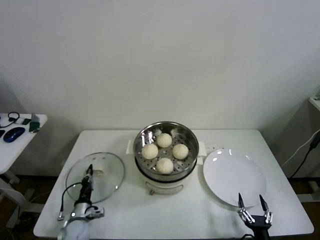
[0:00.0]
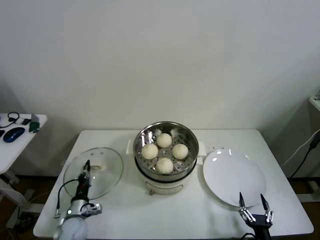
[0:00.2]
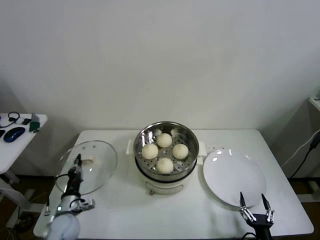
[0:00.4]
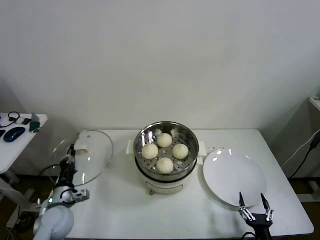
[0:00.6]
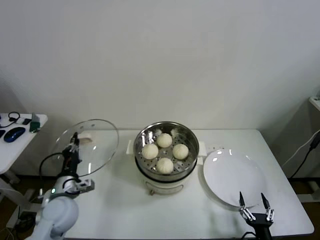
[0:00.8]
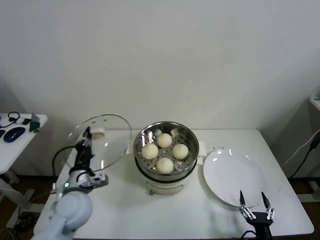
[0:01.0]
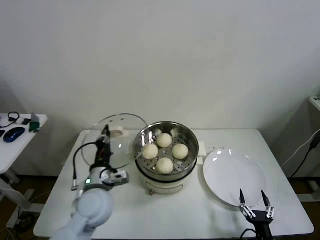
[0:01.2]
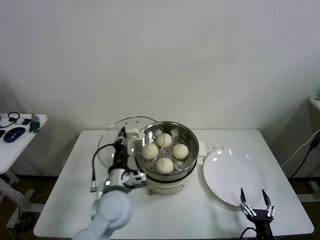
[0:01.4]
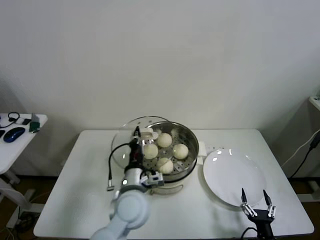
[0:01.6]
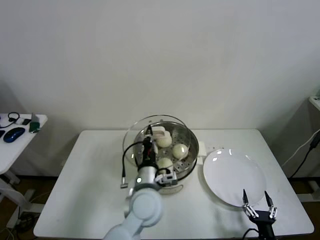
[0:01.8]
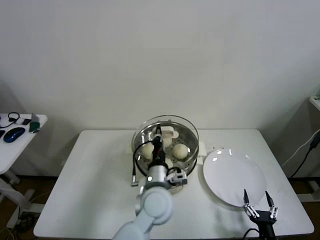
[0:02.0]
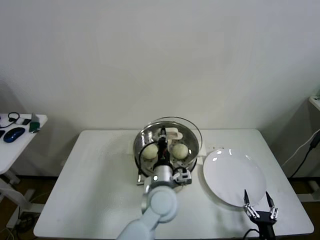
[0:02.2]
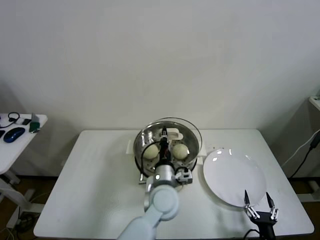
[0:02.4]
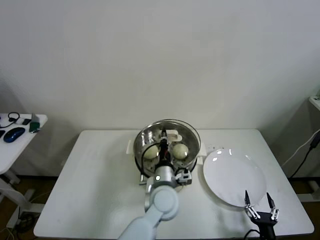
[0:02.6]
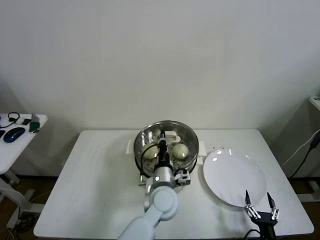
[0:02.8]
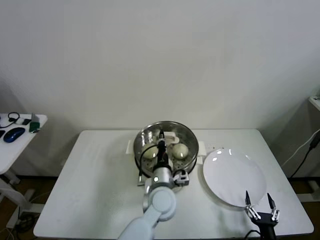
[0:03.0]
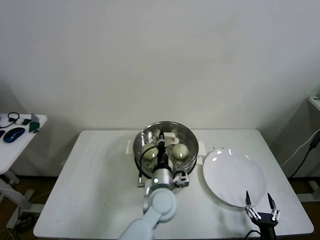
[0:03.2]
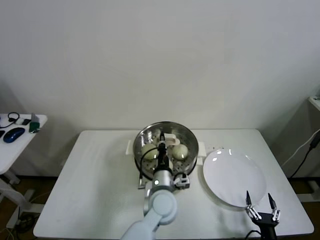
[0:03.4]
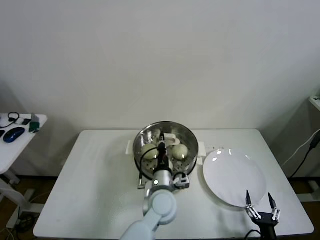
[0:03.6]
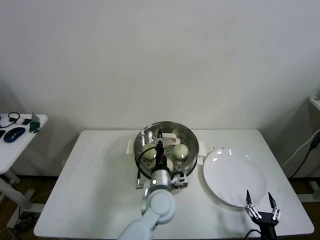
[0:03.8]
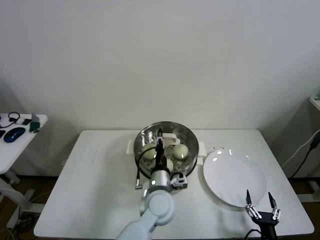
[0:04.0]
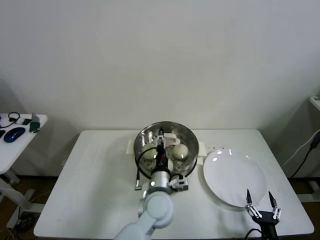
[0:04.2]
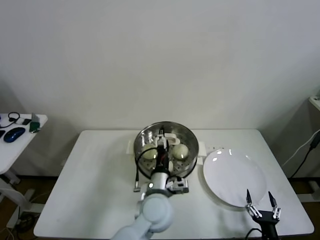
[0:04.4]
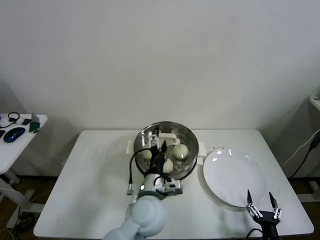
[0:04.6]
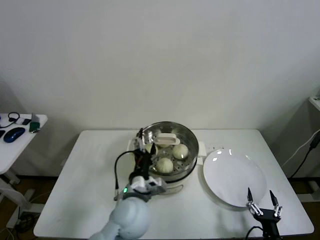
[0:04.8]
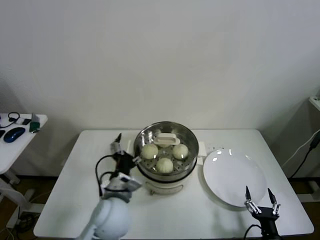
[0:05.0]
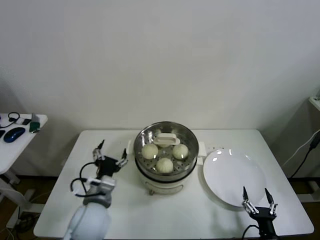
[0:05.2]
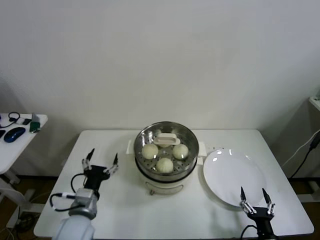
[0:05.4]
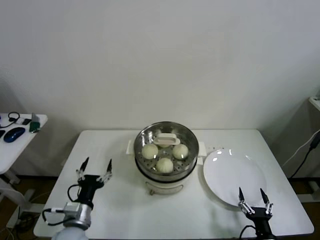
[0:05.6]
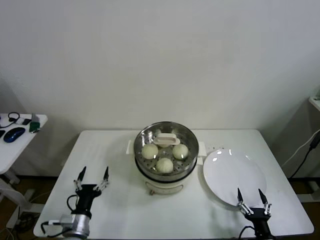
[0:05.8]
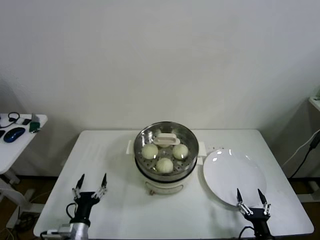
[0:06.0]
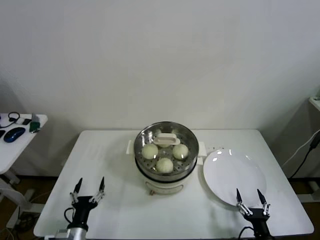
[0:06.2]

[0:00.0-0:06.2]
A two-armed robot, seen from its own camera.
Step, 0:00.0 to 0:03.8: Place the pot lid on the steamer with left gripper.
0:00.0 to 0:01.6: The left gripper goes about 35 cm upward and to the right.
0:01.6 to 0:03.2: The left gripper is displaced to the right and downward by about 10 cm.
0:03.2 to 0:04.6: The left gripper moves approximately 5 cm, and opens its fingers.
0:04.6 to 0:06.2: The left gripper is displaced to the left, downward and backward by approximately 30 cm.

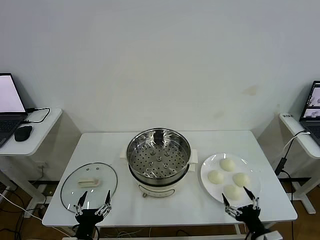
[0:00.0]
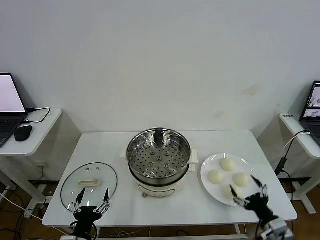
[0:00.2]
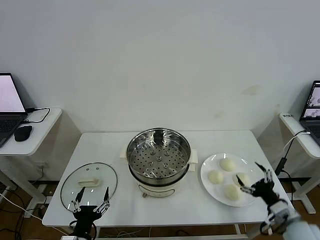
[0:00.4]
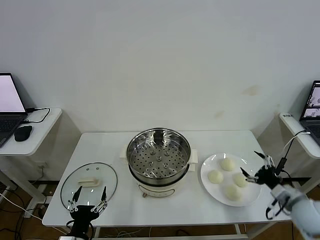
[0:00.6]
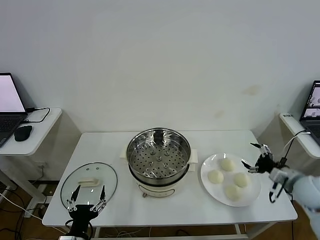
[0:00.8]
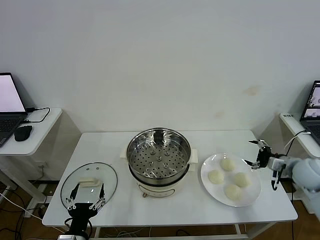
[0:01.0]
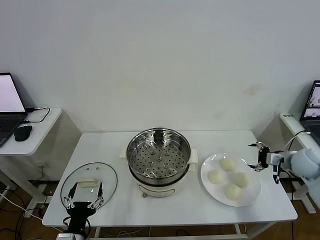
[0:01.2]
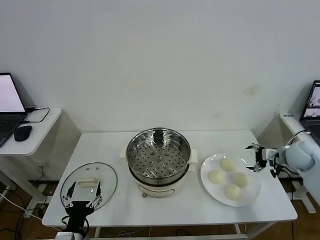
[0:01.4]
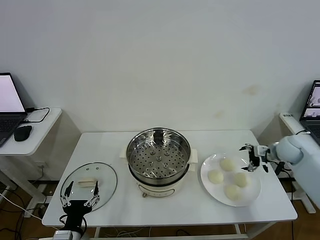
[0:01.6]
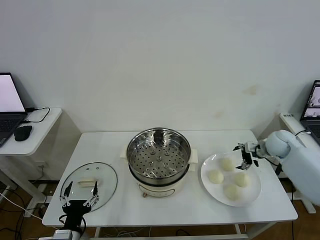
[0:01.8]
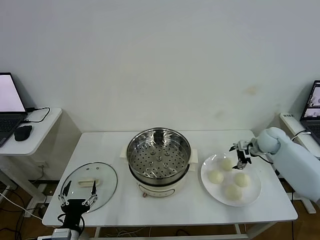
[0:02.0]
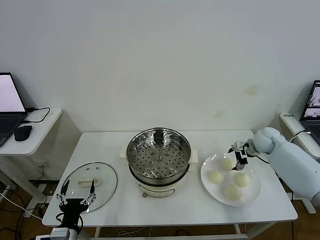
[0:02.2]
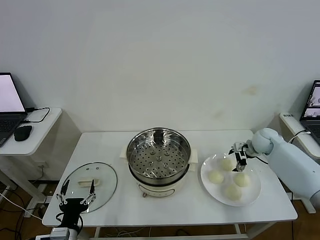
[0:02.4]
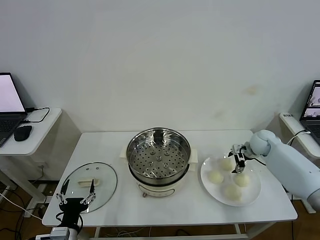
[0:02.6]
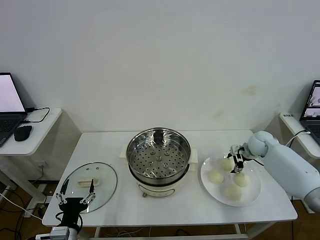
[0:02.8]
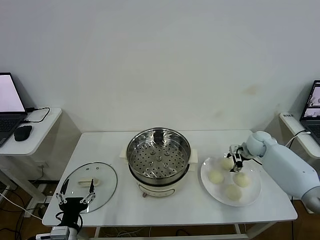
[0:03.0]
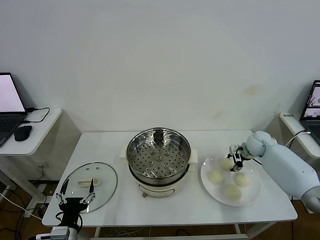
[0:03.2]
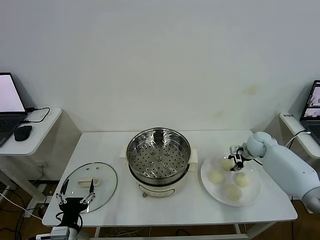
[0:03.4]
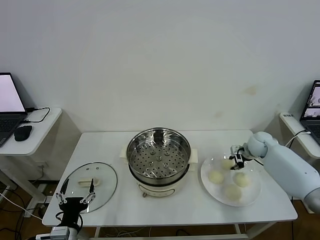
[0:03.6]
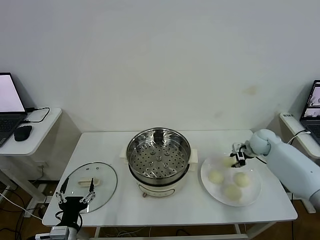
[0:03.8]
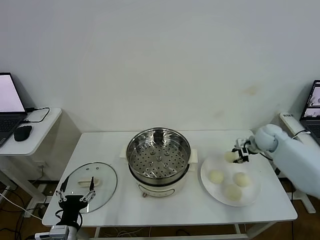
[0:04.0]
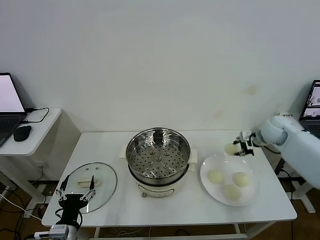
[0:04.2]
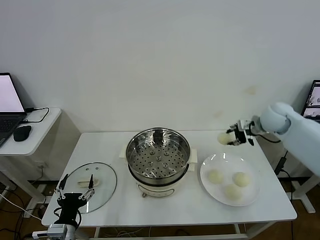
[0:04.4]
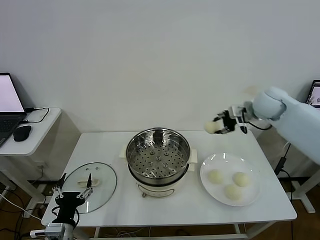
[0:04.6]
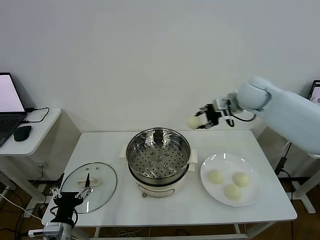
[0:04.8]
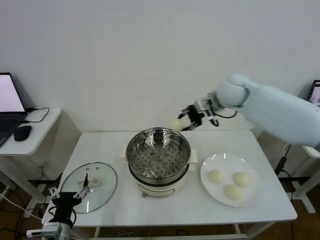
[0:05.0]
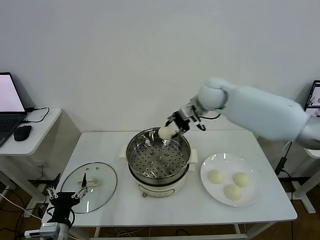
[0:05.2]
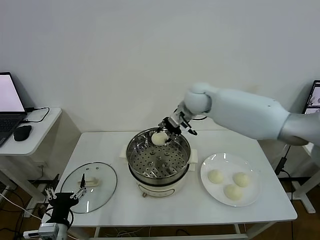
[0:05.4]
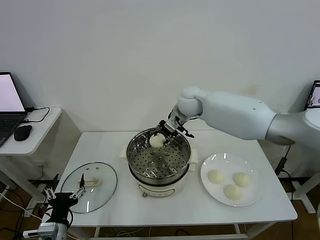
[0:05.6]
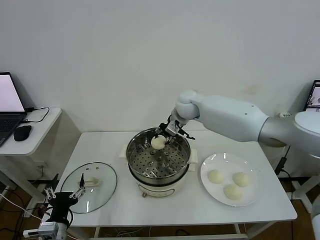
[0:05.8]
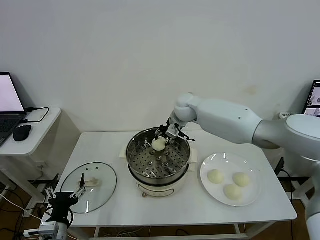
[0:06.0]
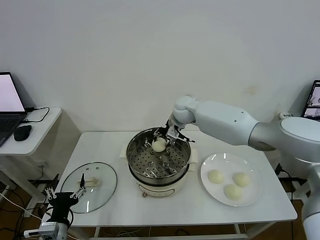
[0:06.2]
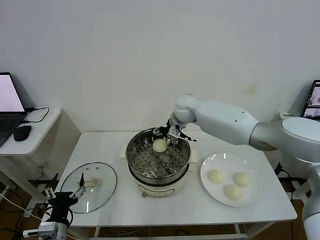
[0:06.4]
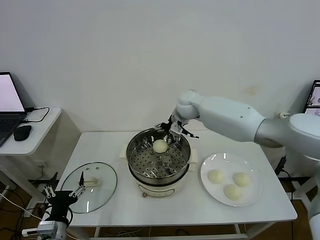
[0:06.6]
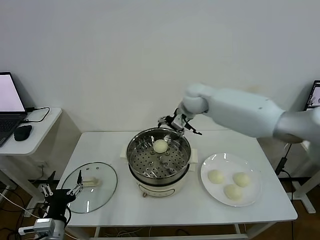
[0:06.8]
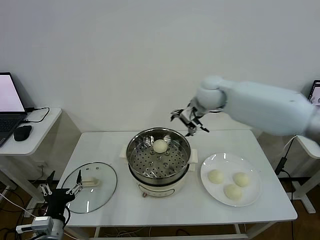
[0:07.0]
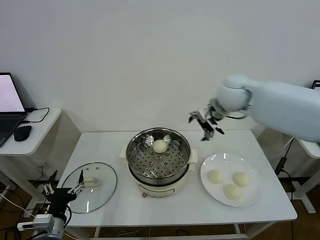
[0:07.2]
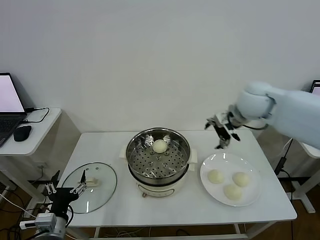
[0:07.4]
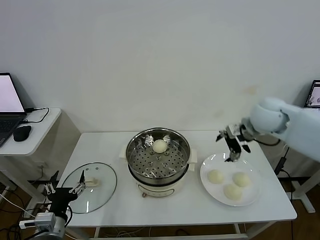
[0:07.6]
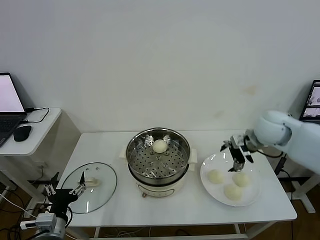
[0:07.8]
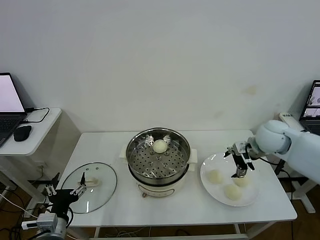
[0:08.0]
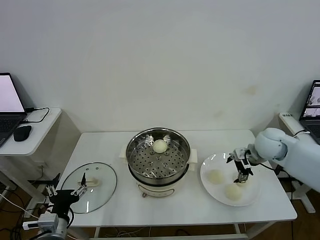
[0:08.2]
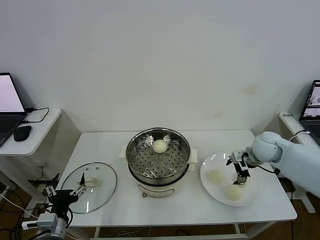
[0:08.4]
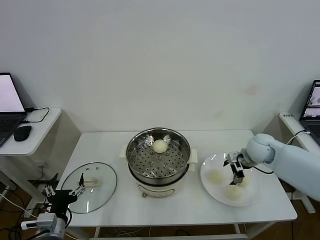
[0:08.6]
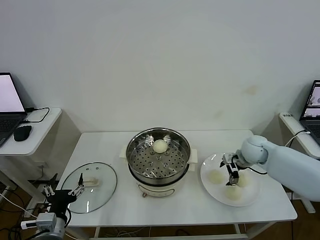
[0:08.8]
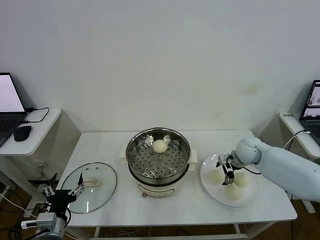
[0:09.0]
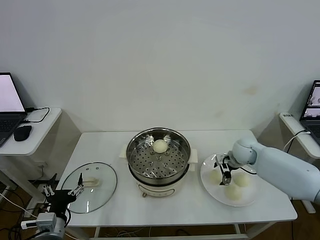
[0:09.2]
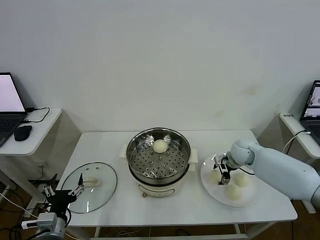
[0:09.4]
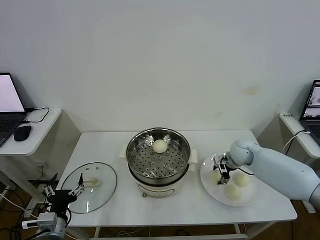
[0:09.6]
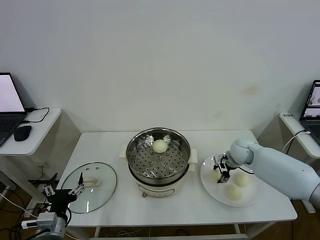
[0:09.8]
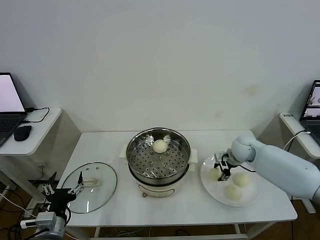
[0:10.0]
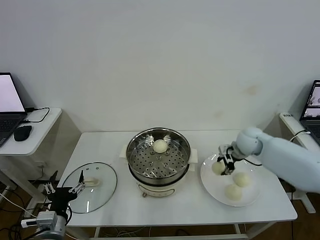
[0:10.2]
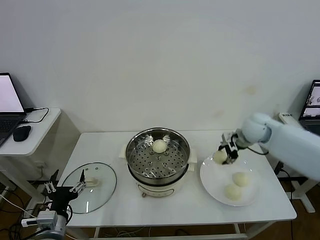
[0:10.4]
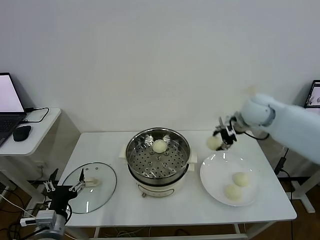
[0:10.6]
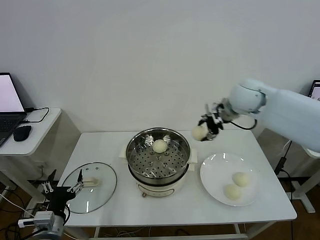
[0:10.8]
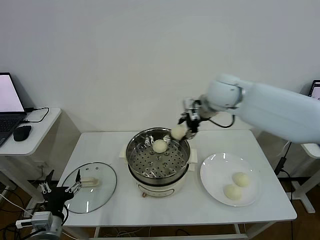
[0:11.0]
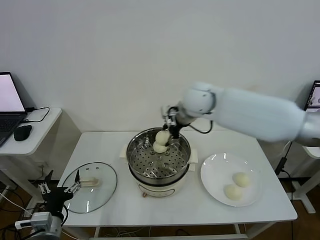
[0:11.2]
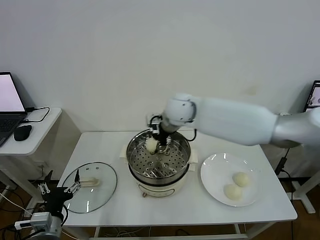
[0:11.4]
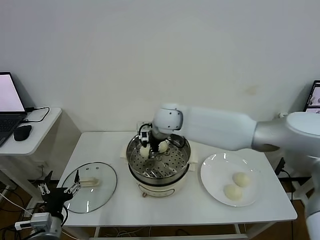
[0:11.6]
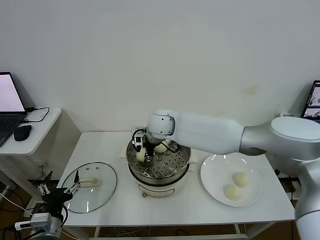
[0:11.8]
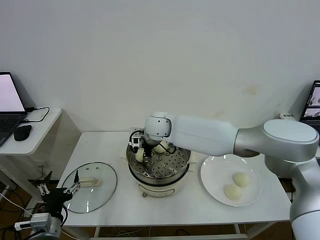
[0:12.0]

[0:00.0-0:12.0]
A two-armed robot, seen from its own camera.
Step, 0:00.0 to 0:03.2: Grasp the baozi in the plate with right gripper.
Step, 0:03.4 to 0:06.6: Place the baozi on the steamer with right gripper.
Step, 0:06.8 to 0:09.8: Grasp the baozi in the plate with right gripper.
0:01.6 to 0:03.0: The right gripper changes place by about 10 cm, and closes up.
0:03.0 to 0:04.4: The right gripper shifts some 20 cm upward, and closes up.
0:04.4 to 0:06.0: The right gripper goes roughly 25 cm to the left.
0:06.0 to 0:07.6: The right gripper goes about 25 cm to the right and backward, and opens up.
0:07.6 to 0:09.0: The right gripper goes approximately 15 cm downward.
0:09.0 to 0:10.4: The right gripper heads upward, covering approximately 15 cm, and closes its fingers.
0:10.4 to 0:12.0: The right gripper goes approximately 30 cm to the left.

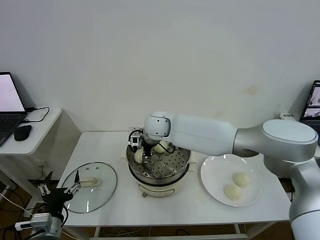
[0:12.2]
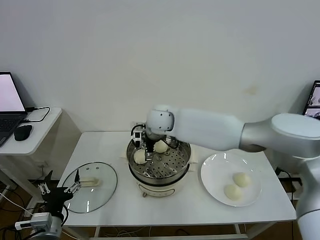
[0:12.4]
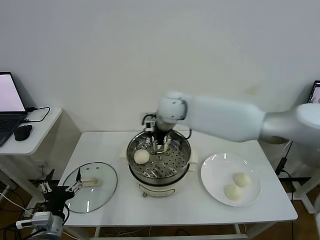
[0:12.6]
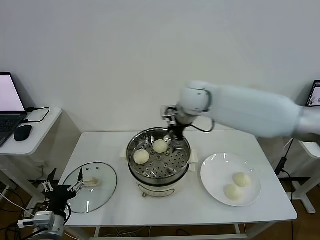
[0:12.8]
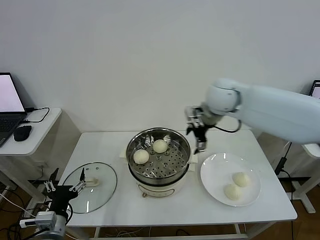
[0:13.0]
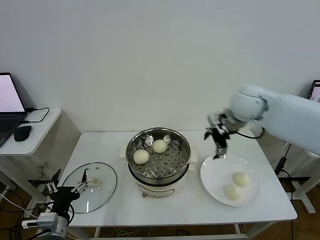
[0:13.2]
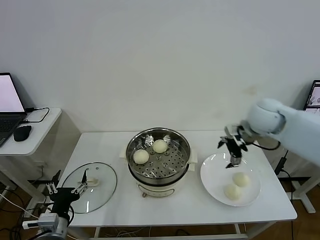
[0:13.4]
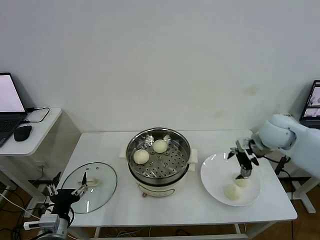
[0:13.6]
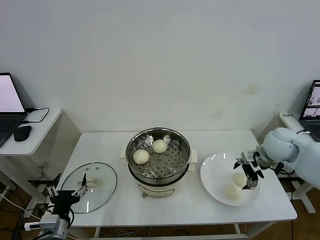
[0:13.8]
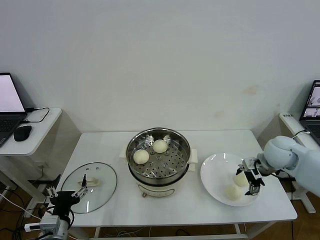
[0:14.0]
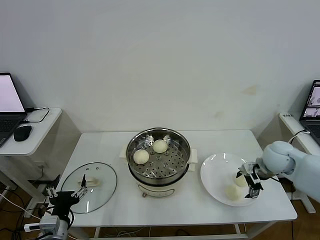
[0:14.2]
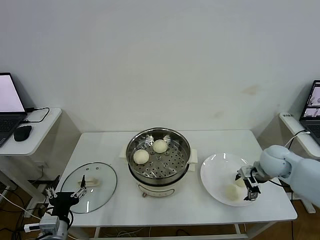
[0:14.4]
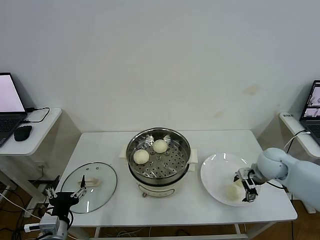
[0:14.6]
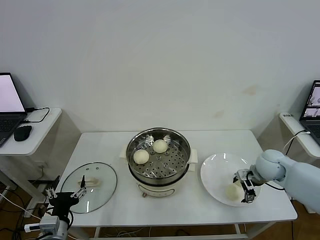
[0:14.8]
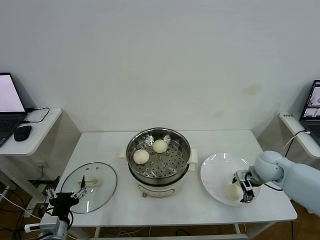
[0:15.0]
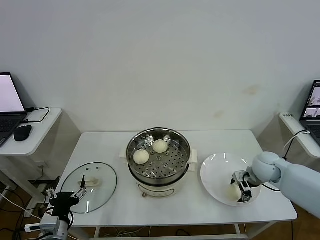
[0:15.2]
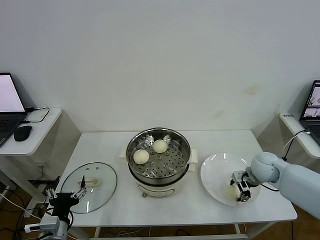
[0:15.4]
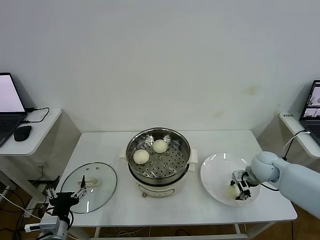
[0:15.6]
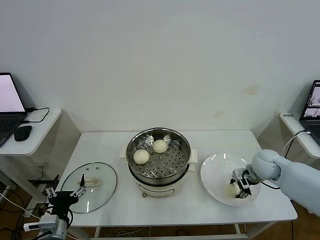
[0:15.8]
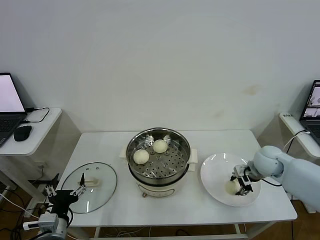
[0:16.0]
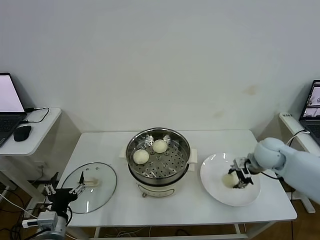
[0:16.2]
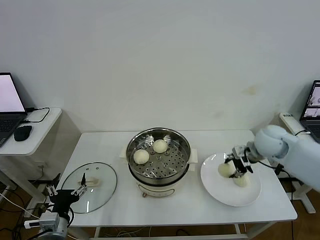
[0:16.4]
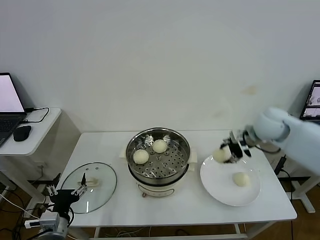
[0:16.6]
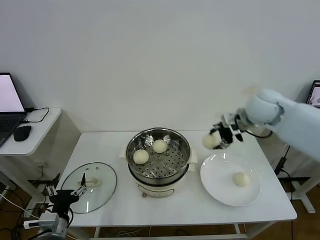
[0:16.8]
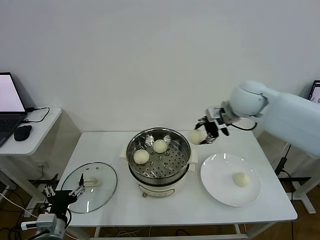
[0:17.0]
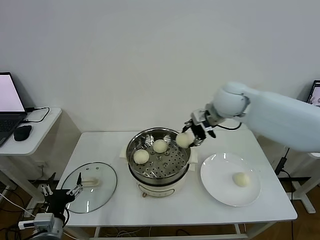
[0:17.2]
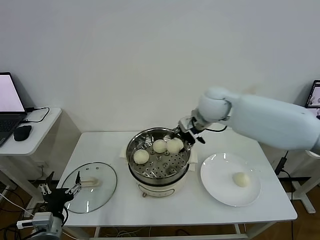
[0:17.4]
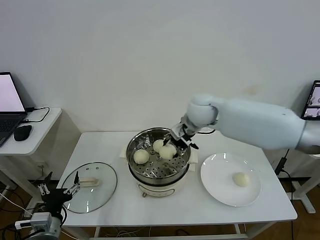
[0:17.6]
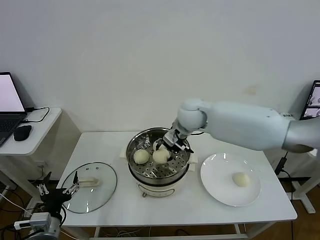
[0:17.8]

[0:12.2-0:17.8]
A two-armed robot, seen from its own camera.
Step, 0:12.6 to 0:15.4: Grasp the baozi in the plate with right gripper.
0:12.2 to 0:13.6: The right gripper shifts roughly 35 cm to the right.
0:13.6 to 0:15.0: The right gripper goes about 10 cm downward.
0:15.0 to 0:16.4: The right gripper goes some 10 cm upward, and closes up.
0:16.4 to 0:17.8: The right gripper shifts some 25 cm to the left.
